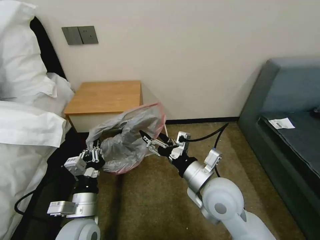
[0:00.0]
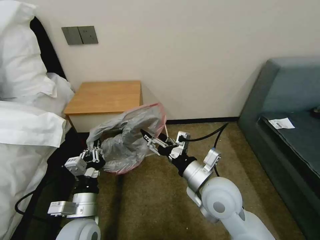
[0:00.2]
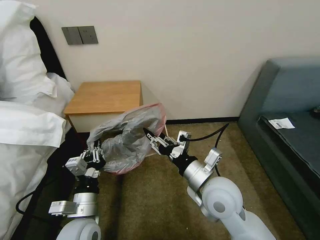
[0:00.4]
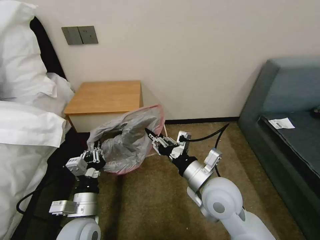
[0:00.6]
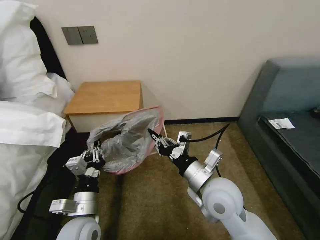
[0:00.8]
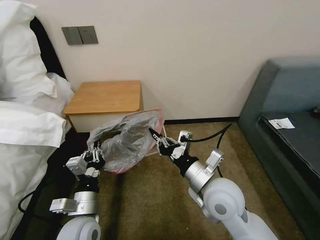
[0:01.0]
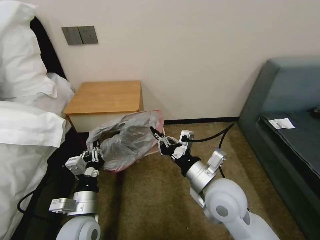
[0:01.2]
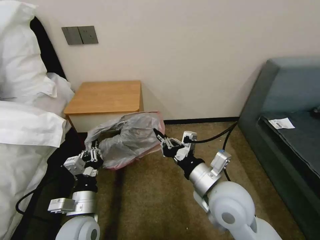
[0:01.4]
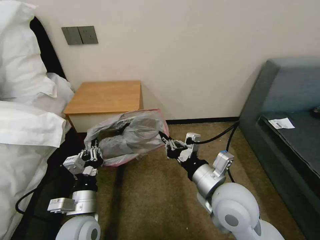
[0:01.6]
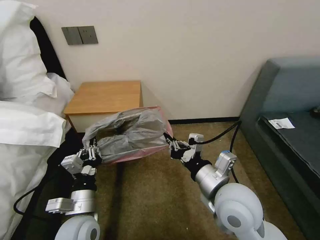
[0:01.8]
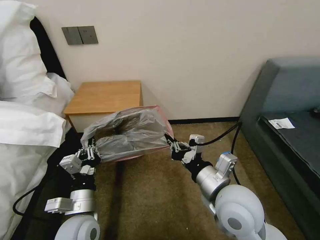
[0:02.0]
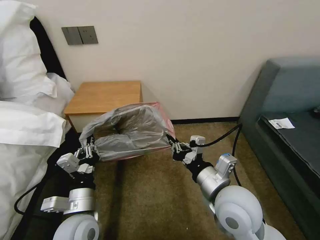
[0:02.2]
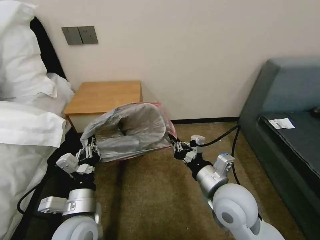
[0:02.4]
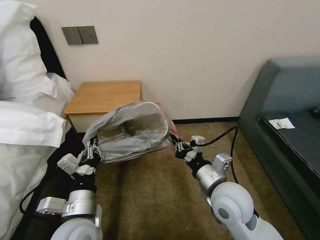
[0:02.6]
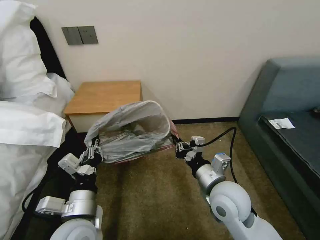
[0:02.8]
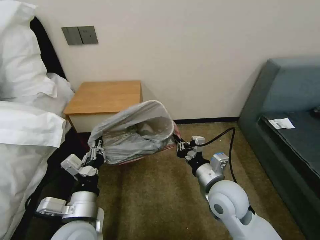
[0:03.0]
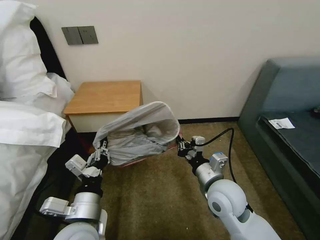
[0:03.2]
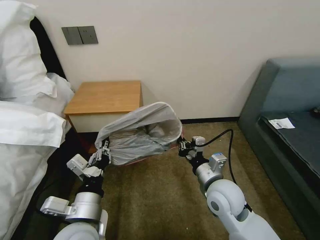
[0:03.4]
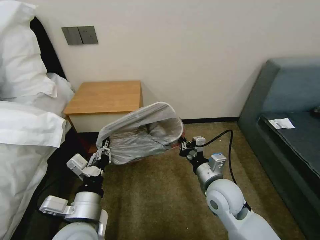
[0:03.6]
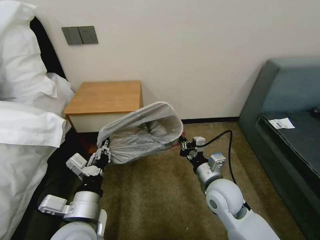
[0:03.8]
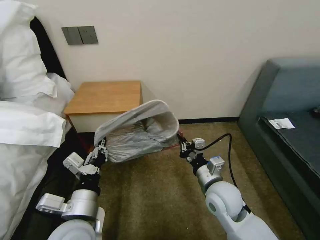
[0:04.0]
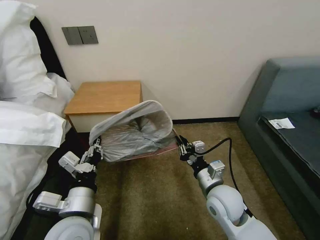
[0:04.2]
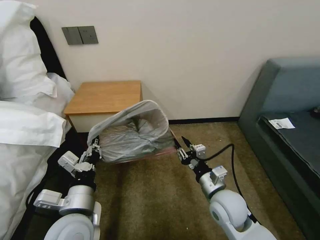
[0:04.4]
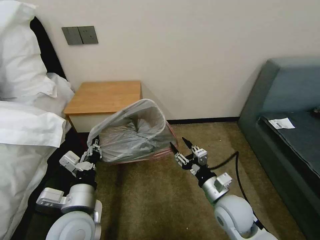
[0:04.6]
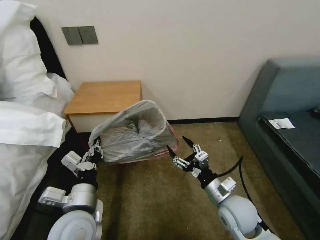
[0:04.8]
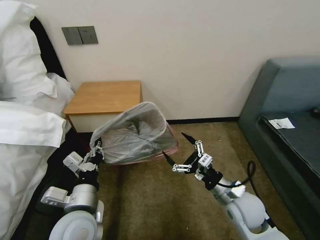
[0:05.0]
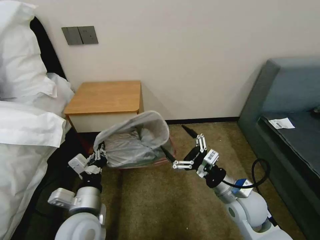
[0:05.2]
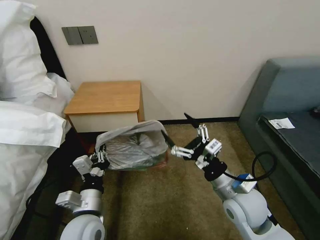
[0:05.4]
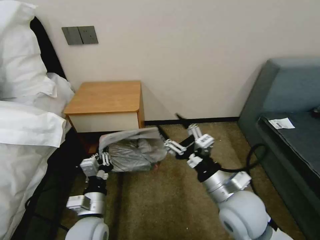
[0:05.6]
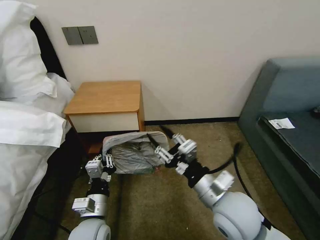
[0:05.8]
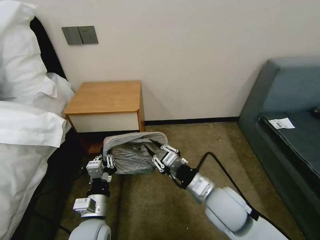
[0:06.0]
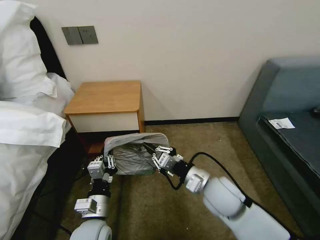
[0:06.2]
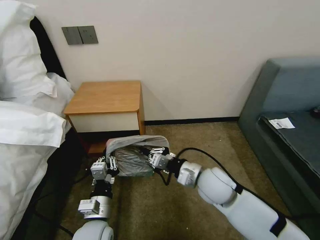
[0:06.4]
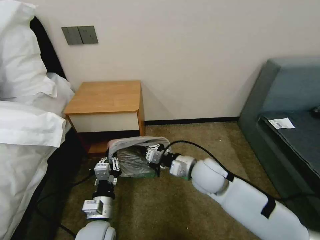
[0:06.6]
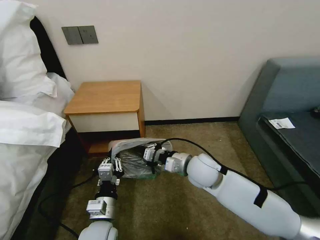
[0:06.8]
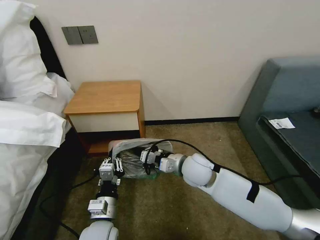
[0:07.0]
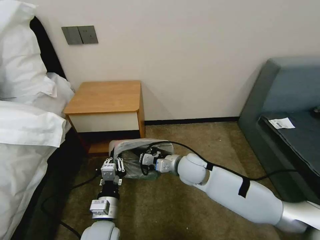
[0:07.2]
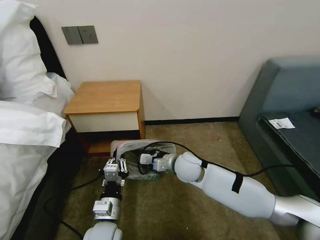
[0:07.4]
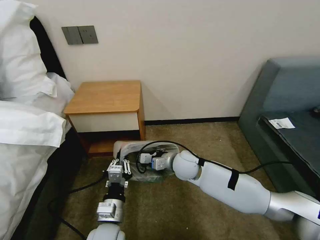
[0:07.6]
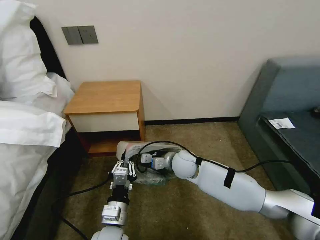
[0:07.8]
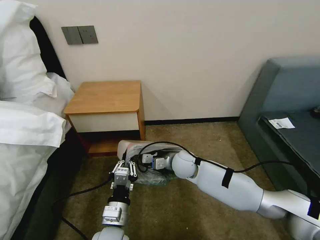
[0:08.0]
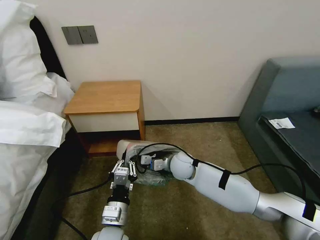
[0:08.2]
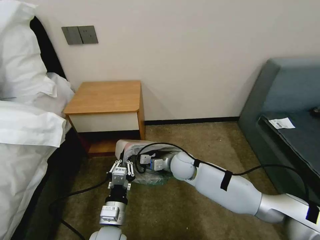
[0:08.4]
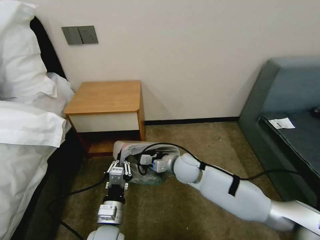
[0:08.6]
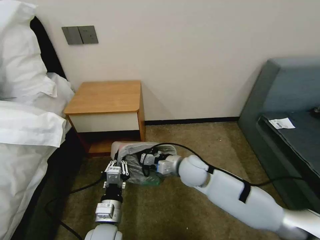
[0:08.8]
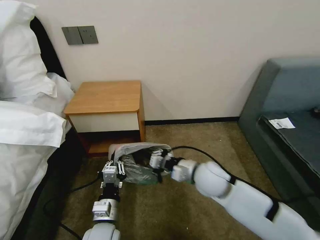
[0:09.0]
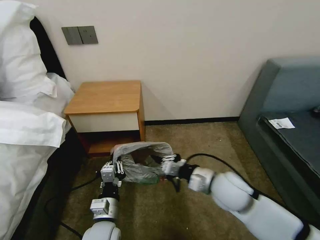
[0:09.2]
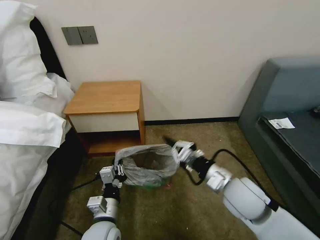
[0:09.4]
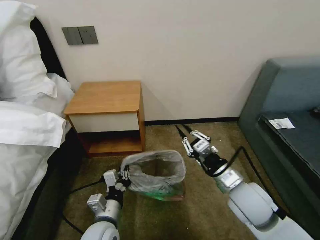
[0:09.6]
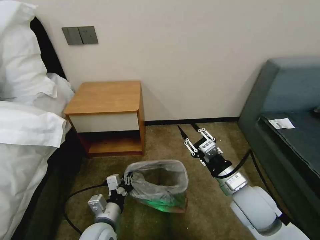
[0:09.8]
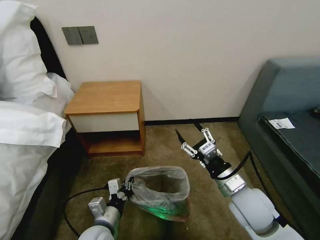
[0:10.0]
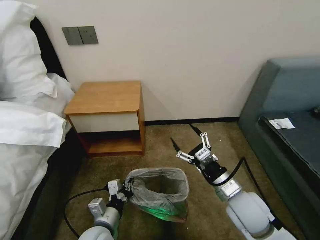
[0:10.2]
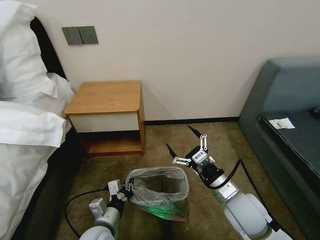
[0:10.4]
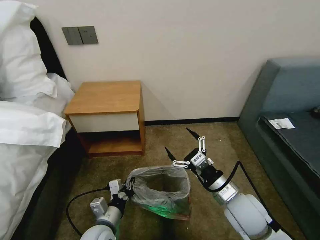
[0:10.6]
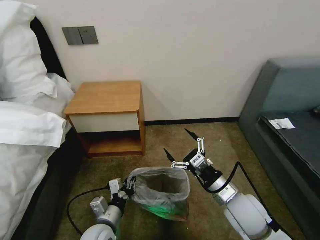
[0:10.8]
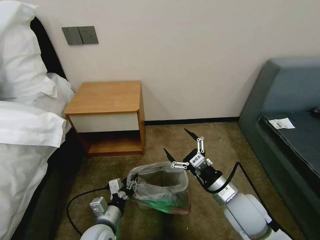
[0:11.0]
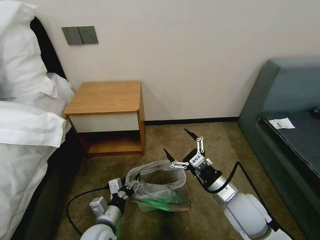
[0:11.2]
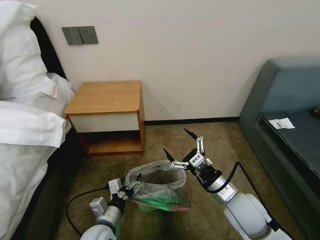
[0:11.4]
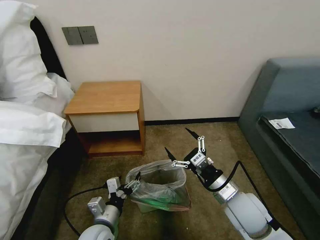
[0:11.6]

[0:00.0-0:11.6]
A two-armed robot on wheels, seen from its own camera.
Task of the whole recording: Pick up the garbage bag from the table and place it over the trash can.
0:00.0 to 0:01.4: The right gripper closes up.
0:01.4 to 0:02.8: The left gripper is displaced upward by roughly 5 cm. Meanwhile the right gripper moves approximately 5 cm.
0:02.8 to 0:04.4: The right gripper goes approximately 5 cm downward.
0:04.4 to 0:05.8: The left gripper is displaced downward by roughly 10 cm. Meanwhile the right gripper shifts roughly 10 cm upward, and opens, then closes again.
0:05.8 to 0:07.2: The right gripper goes approximately 15 cm forward and downward, and closes up.
0:08.8 to 0:10.2: The right gripper goes some 15 cm backward and to the right, and opens up.
0:10.2 to 0:11.6: The left gripper opens up.

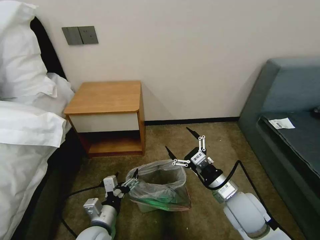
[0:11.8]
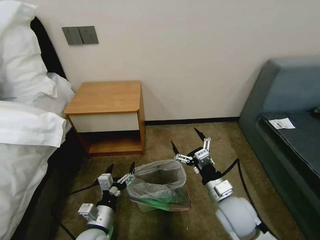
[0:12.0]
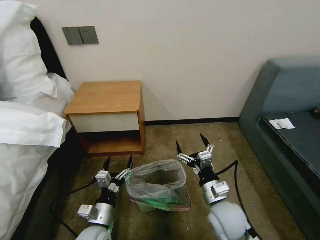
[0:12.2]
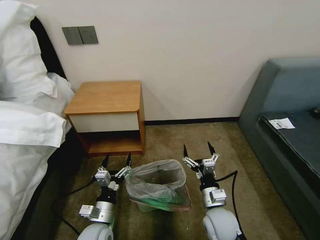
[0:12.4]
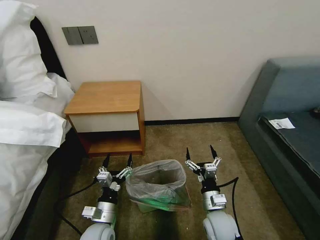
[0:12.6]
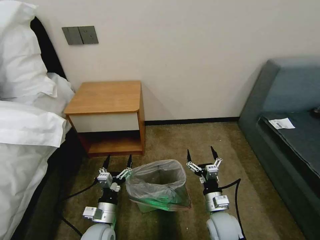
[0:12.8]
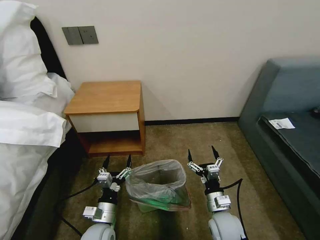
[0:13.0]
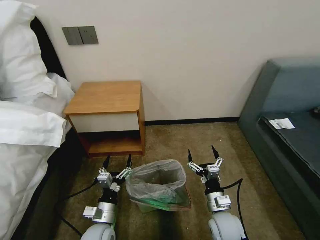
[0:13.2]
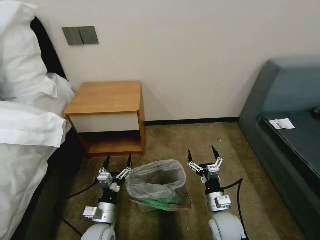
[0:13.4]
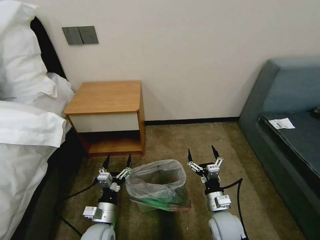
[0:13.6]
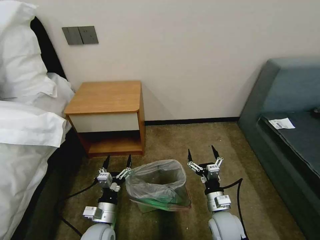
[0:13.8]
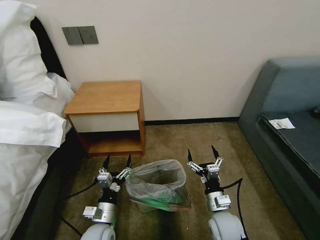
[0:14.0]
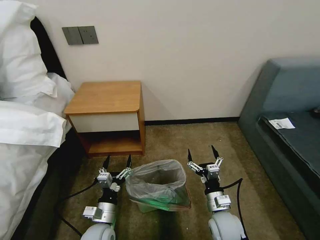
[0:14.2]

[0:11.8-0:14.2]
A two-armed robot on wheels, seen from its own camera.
Task of the whole recording: Pick up the garbage bag from the table and place it over the trash can.
0:11.8 to 0:13.0: The right gripper moves downward, roughly 10 cm, while the left gripper heads downward, covering about 5 cm.
0:13.0 to 0:14.2: Neither gripper changes place.

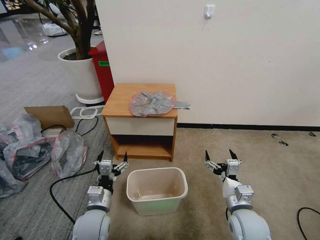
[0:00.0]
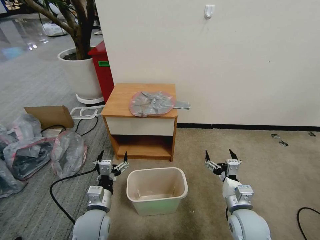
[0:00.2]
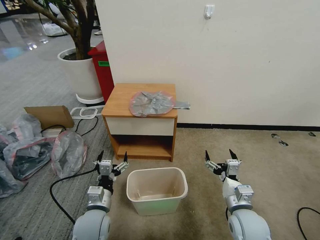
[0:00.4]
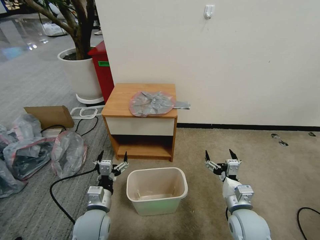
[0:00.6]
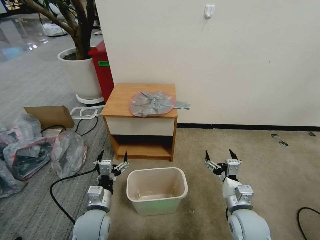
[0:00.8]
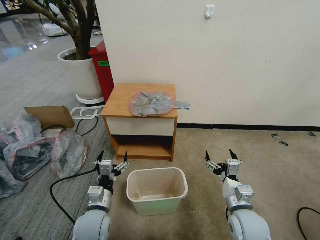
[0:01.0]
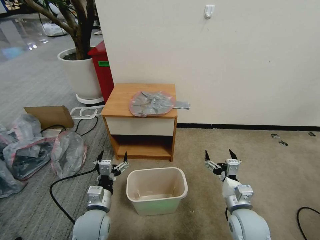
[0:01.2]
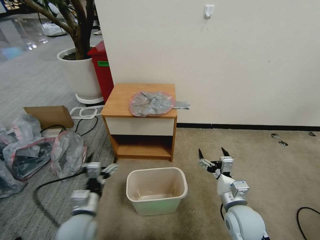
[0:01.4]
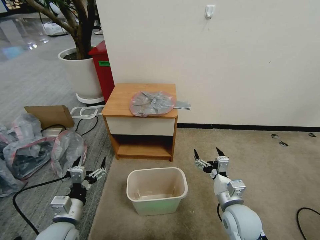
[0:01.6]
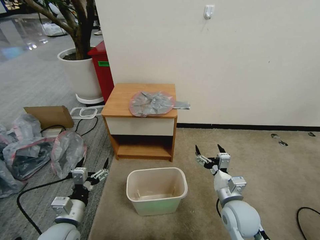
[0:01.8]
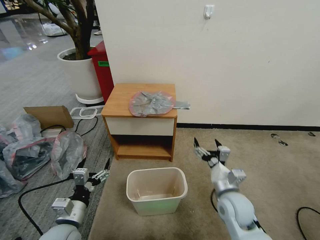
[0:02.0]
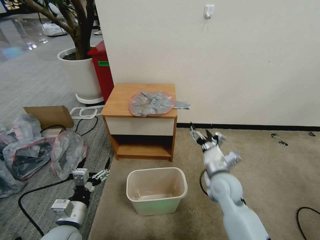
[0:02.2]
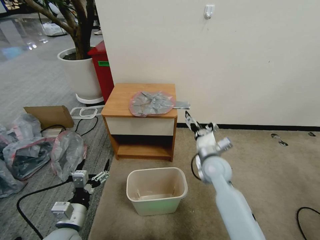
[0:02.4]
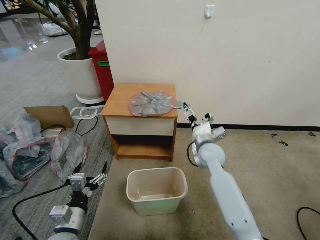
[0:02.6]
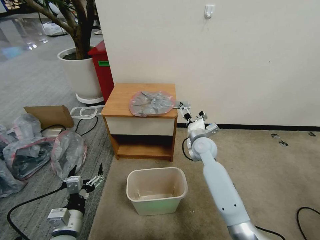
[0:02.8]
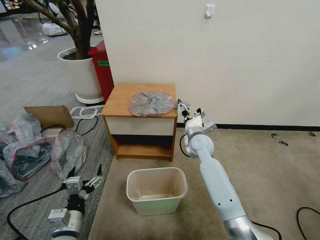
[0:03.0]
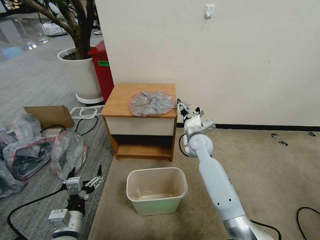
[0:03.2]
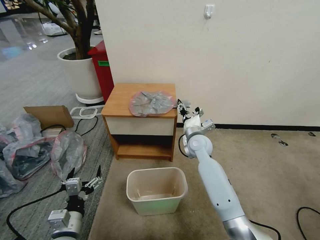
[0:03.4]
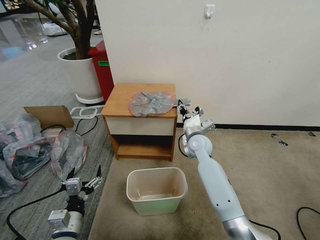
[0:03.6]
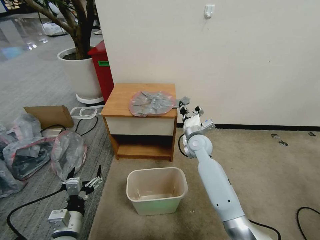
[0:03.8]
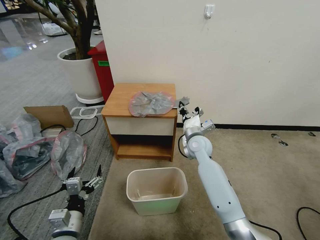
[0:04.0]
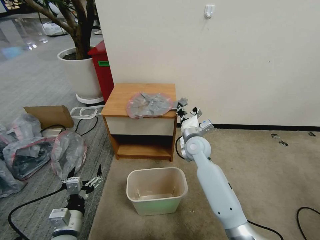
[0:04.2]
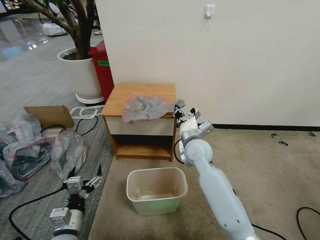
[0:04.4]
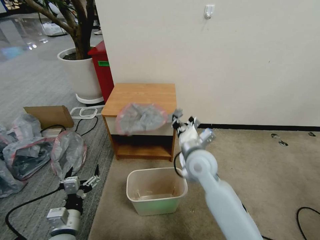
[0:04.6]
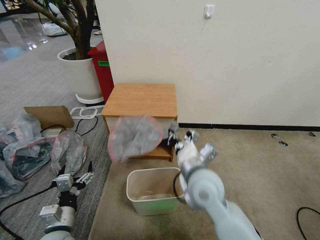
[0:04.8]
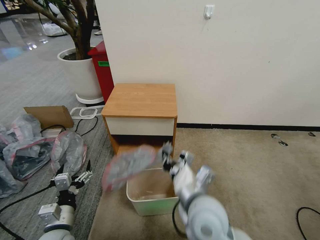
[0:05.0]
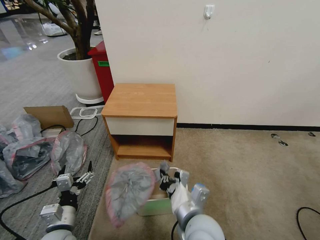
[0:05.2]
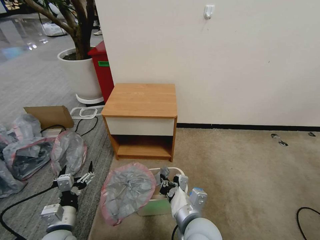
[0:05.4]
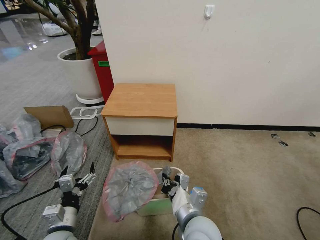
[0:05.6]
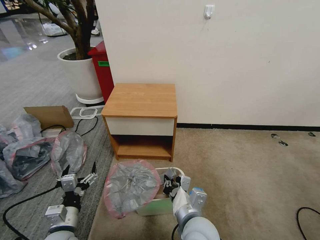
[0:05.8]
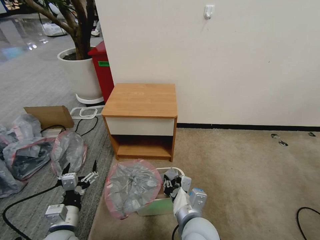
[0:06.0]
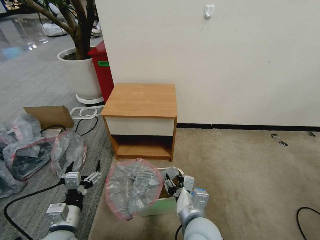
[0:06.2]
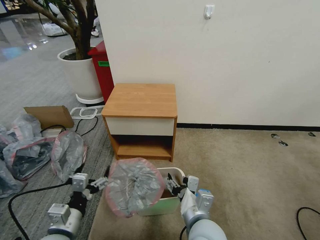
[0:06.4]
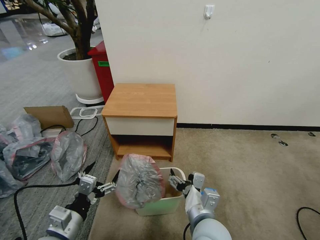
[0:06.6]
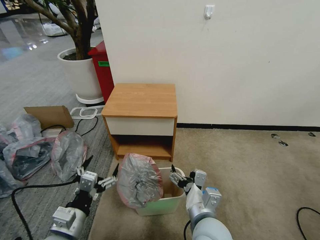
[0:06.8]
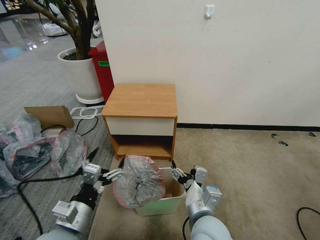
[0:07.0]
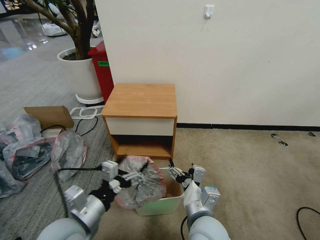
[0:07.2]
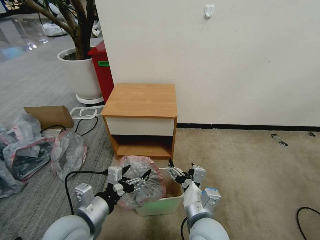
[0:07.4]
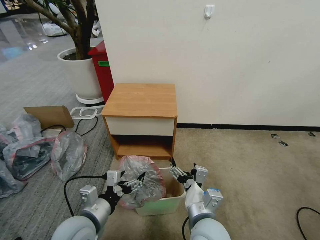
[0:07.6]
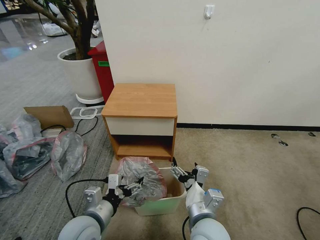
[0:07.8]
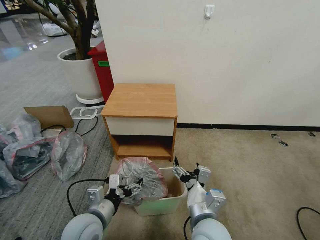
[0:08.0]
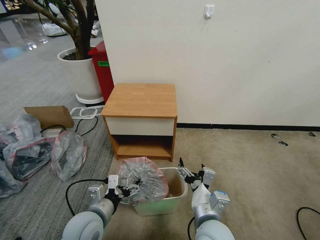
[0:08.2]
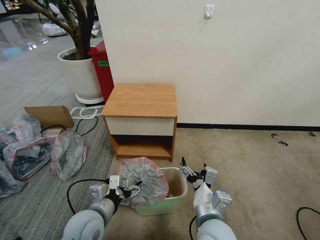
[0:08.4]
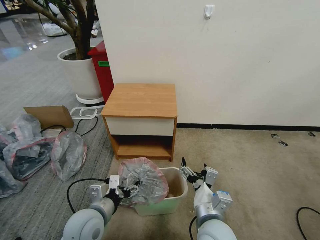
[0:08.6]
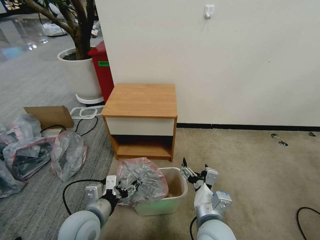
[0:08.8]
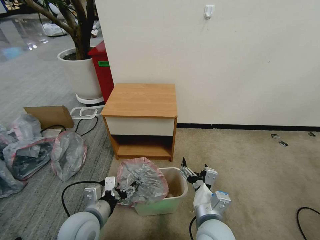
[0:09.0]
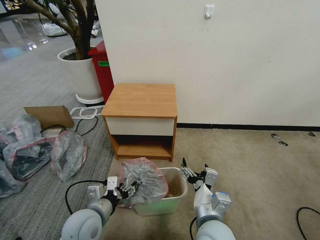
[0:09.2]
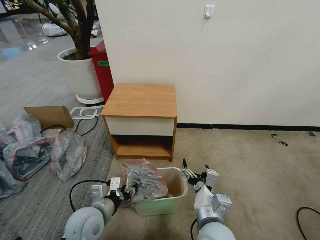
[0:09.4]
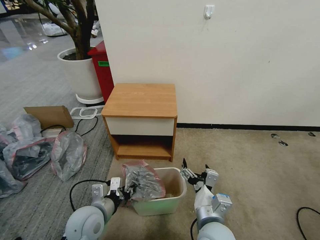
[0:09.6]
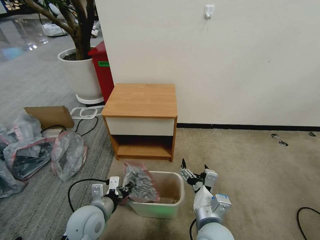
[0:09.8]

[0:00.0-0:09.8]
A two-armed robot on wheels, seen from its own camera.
Task of the whole recording: Pick up the garbage bag from the table and place it over the trash can.
0:01.4 to 0:02.8: The left gripper ends up about 5 cm from where it was, while the right gripper moves forward, approximately 20 cm.
0:02.8 to 0:04.2: The right gripper closes.
0:04.2 to 0:05.6: The right gripper shifts approximately 25 cm backward.
0:05.6 to 0:07.0: The left gripper moves upward, some 10 cm. Meanwhile the right gripper opens.
0:07.0 to 0:08.4: The left gripper travels forward by about 5 cm.
0:08.4 to 0:09.8: The left gripper closes.
